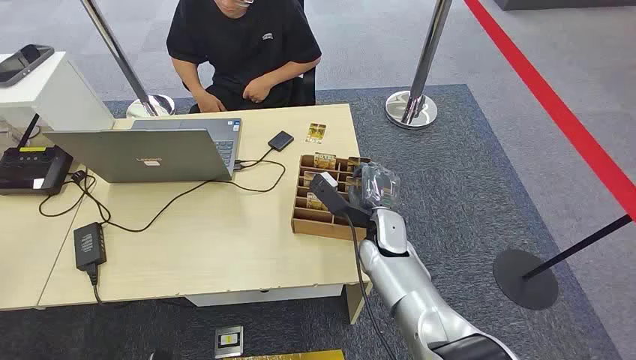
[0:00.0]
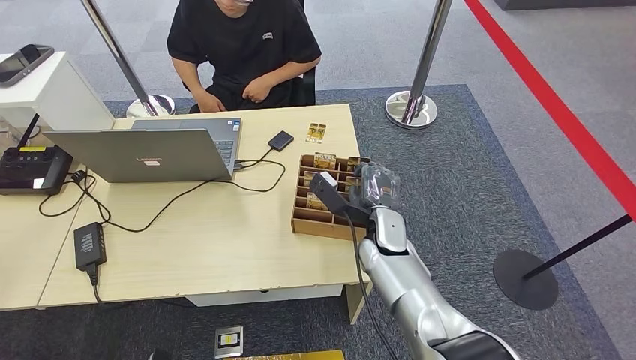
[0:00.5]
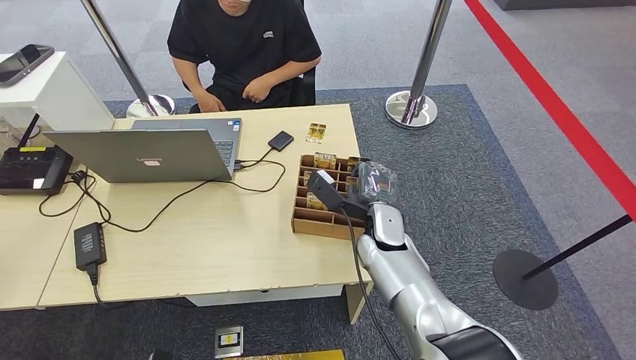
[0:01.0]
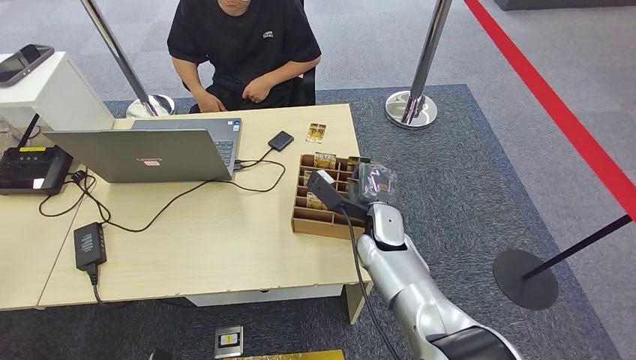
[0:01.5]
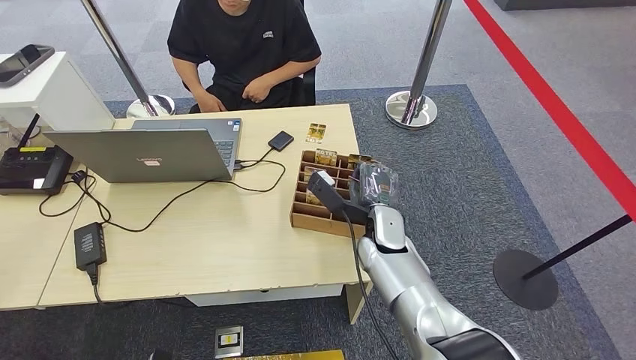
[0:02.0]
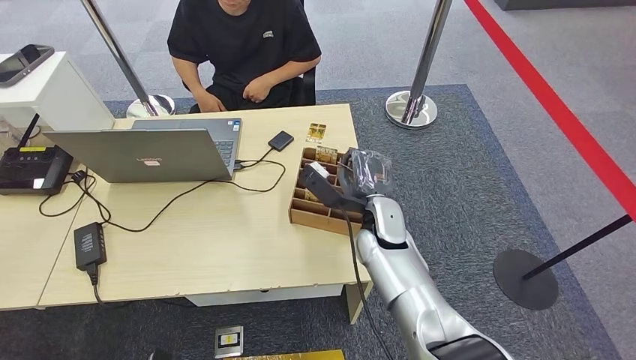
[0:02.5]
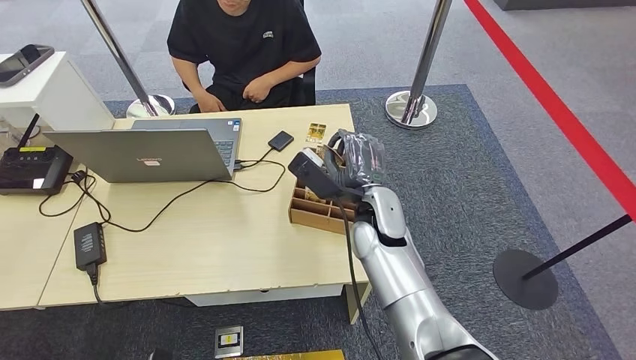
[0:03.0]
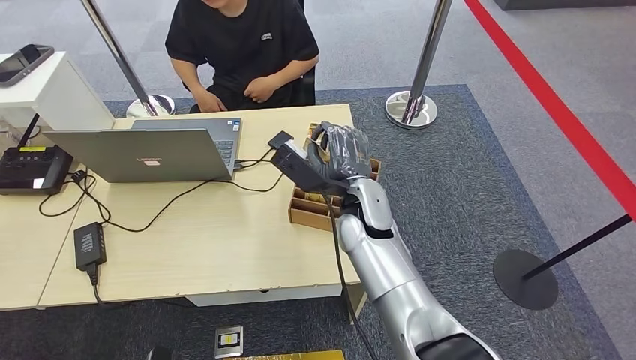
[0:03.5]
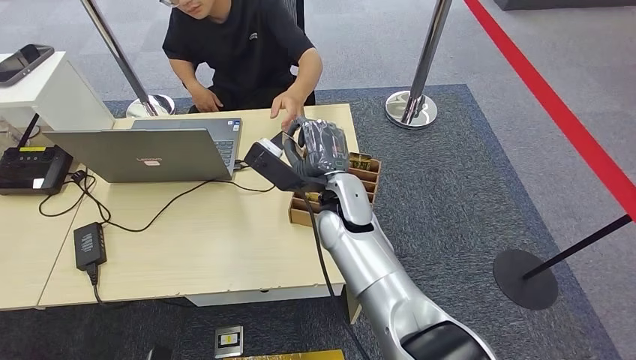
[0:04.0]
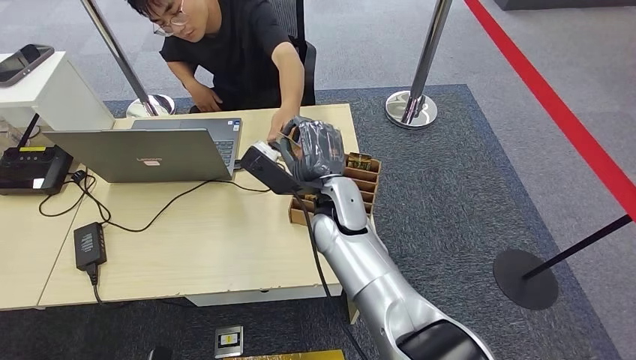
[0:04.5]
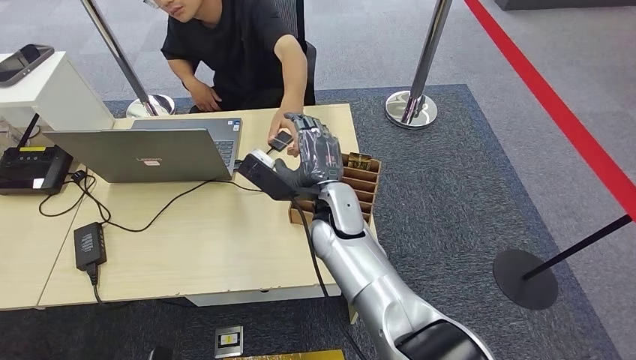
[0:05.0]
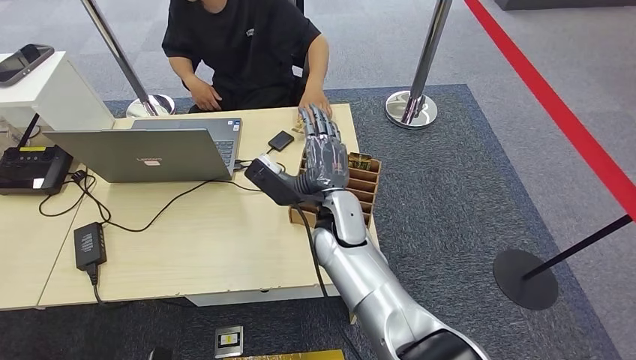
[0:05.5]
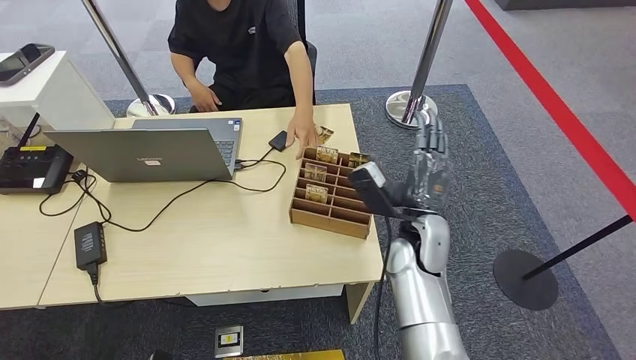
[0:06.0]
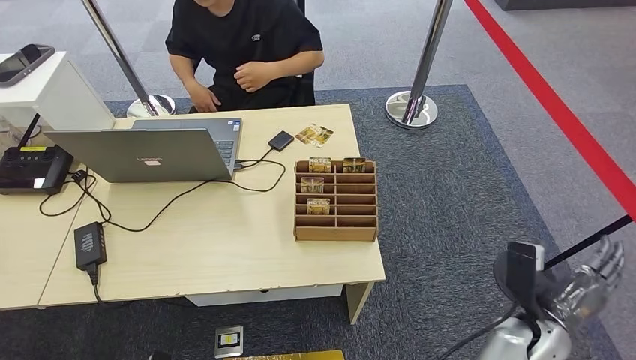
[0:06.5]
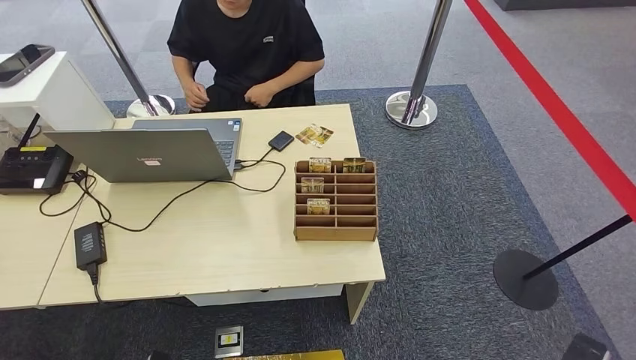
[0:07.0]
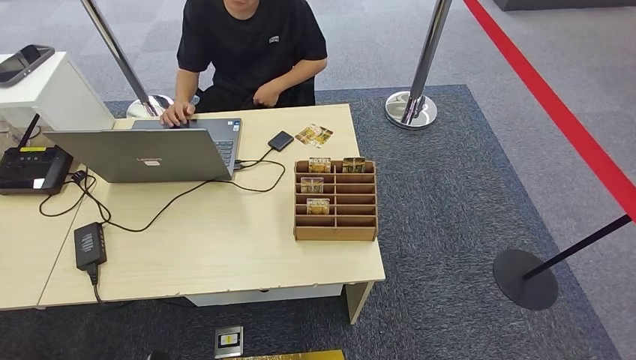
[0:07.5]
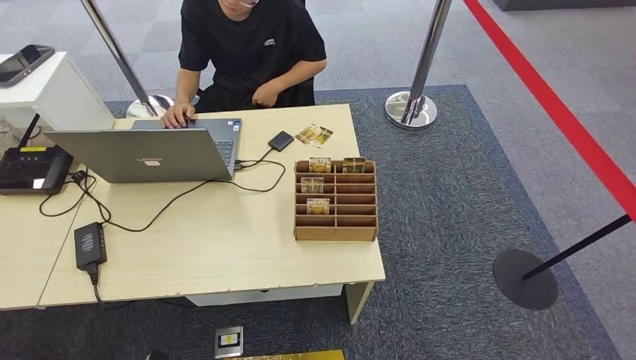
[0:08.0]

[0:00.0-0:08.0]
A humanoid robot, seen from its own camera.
Step, 0:00.0 to 0:03.5: Pick up the key card from the card box.
Step, 0:04.0 to 0:08.0: Hand the key card to the target.
0:02.0 to 0:04.0: The right hand heads upward and to the left, covering approximately 15 cm.
0:04.0 to 0:06.0: The right hand travels to the right by some 10 cm.
0:06.0 to 0:08.0: The right hand heads backward and downward, covering approximately 35 cm.

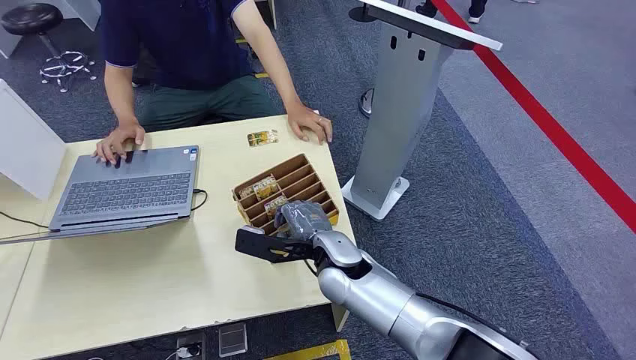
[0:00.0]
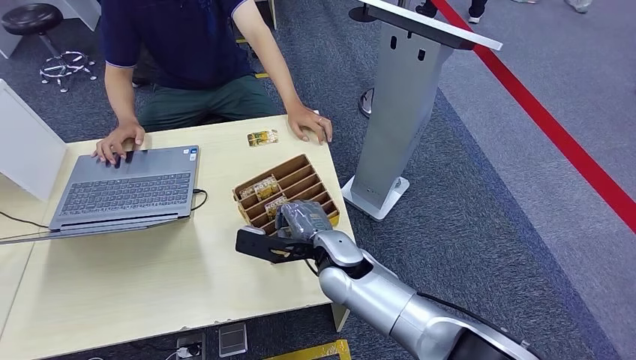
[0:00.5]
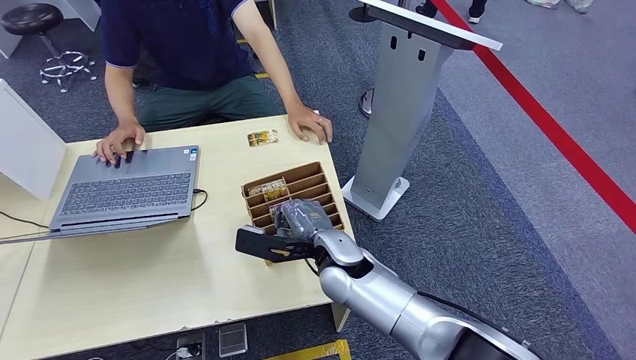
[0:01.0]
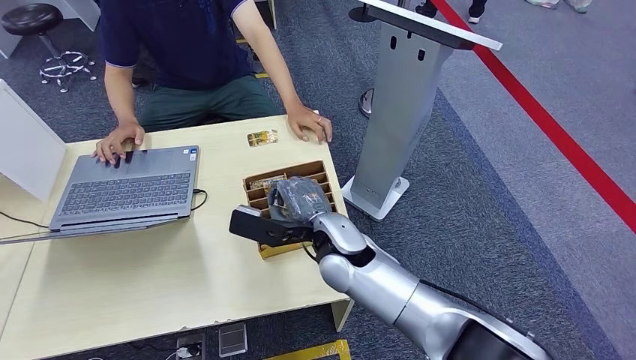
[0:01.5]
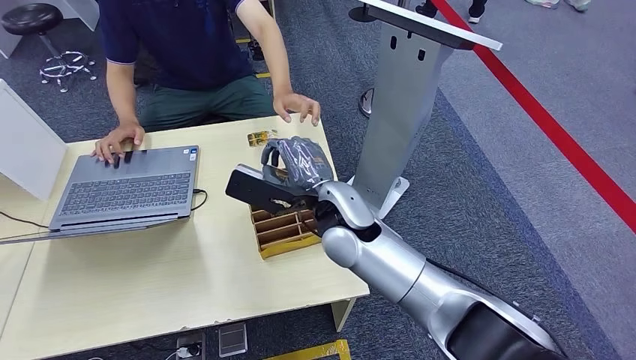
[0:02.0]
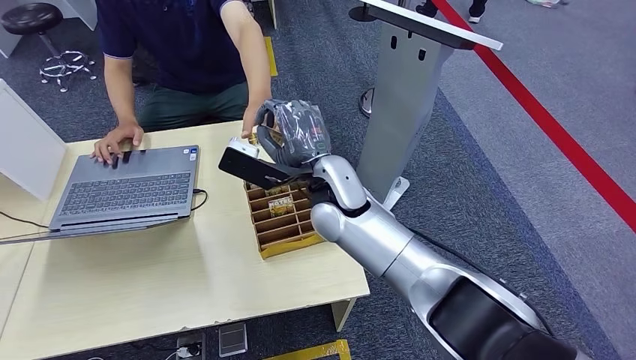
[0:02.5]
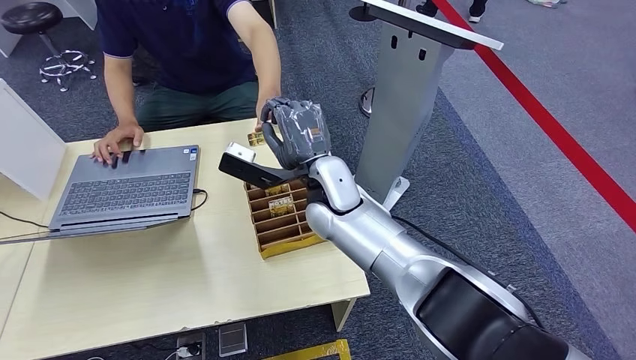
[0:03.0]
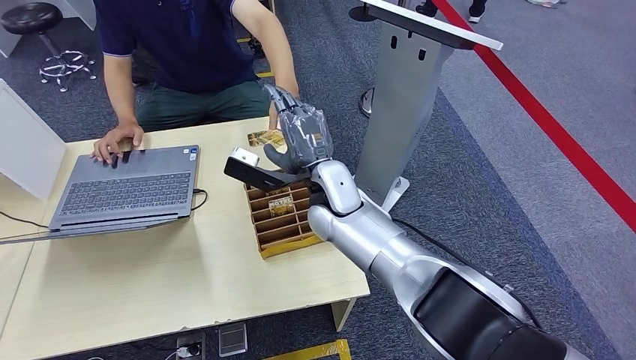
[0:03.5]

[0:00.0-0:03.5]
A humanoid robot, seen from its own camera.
Step, 0:00.0 to 0:02.0: Pick up the key card from the card box.
Step, 0:02.5 to 0:03.5: Hand the key card to the target.
0:02.0 to 0:03.5: The right hand is displaced forward by approximately 5 cm.
